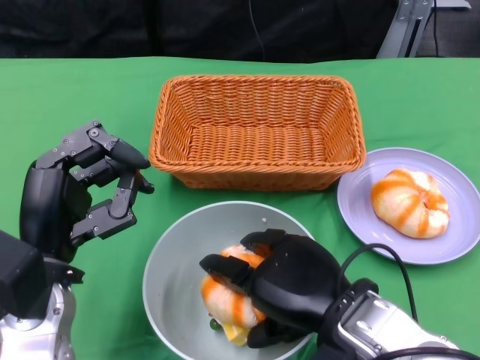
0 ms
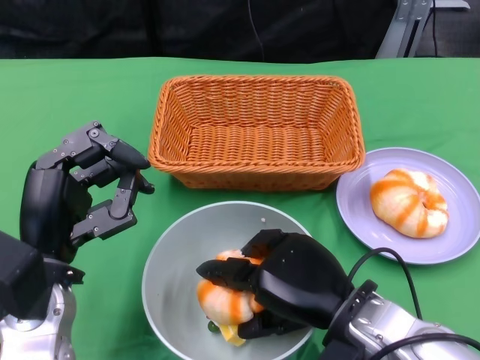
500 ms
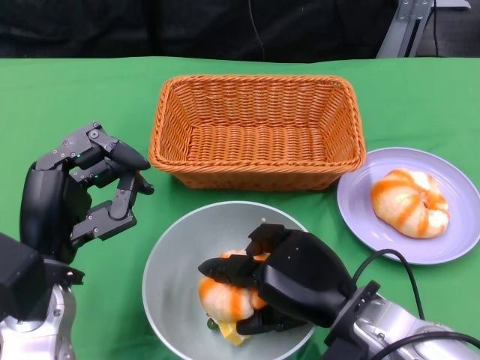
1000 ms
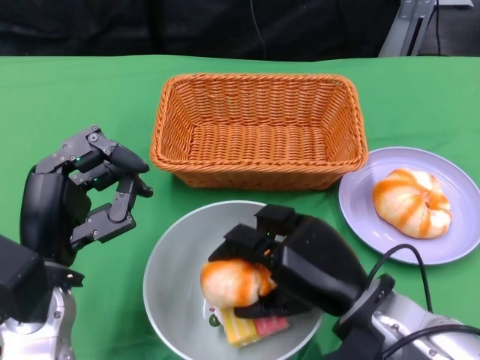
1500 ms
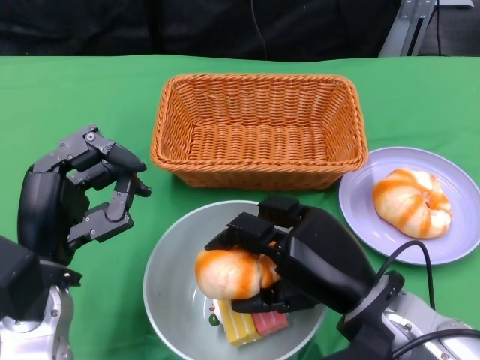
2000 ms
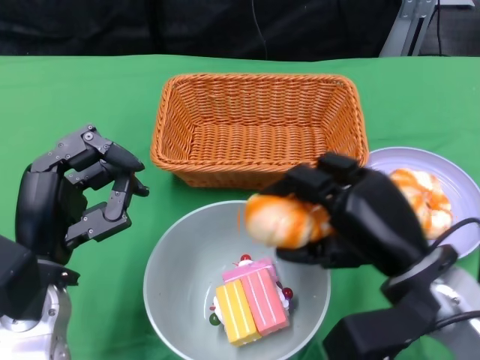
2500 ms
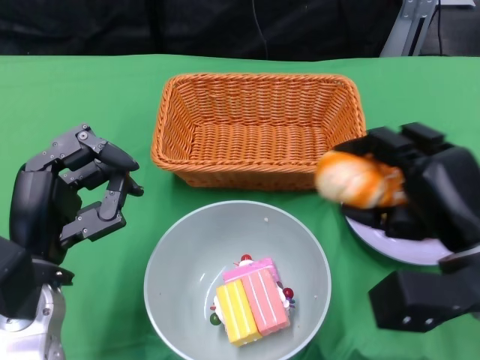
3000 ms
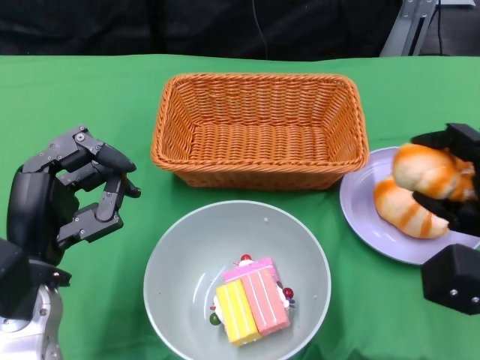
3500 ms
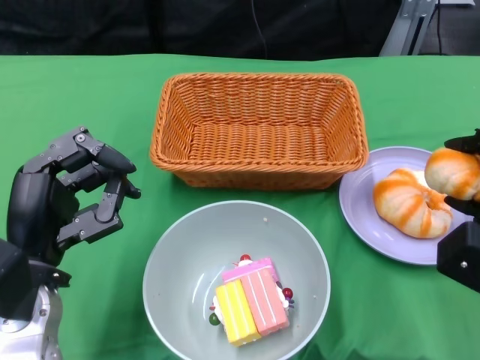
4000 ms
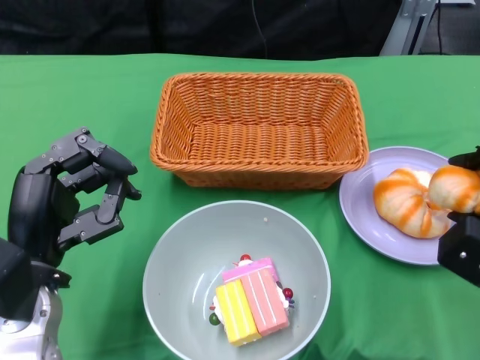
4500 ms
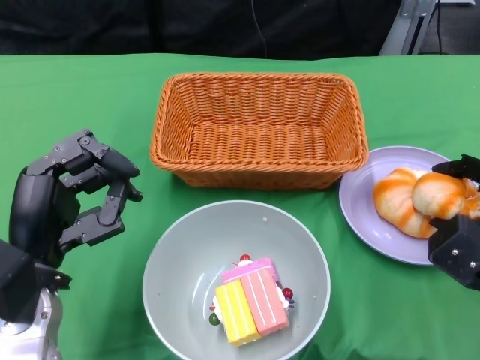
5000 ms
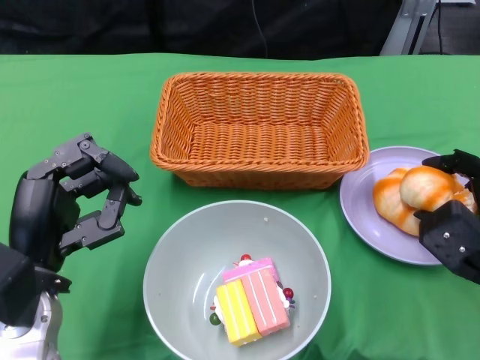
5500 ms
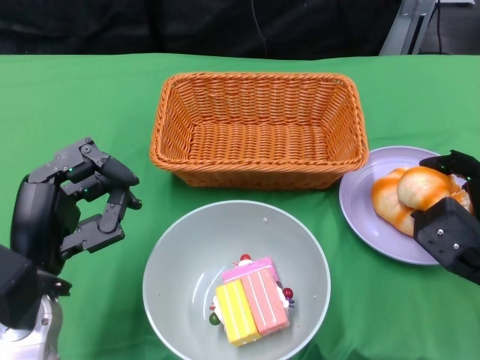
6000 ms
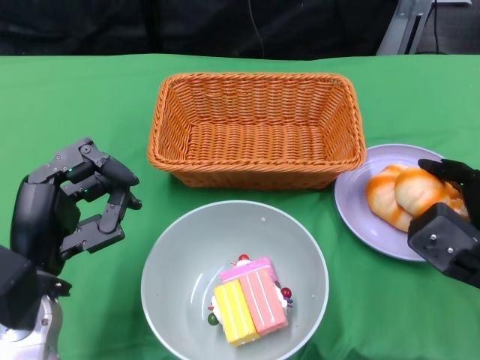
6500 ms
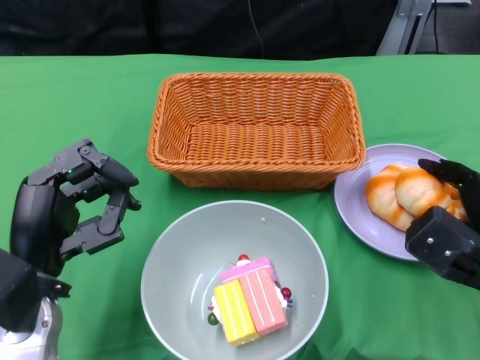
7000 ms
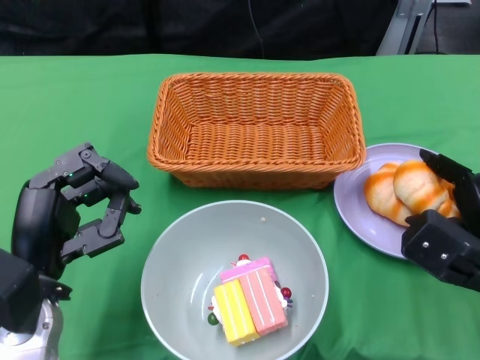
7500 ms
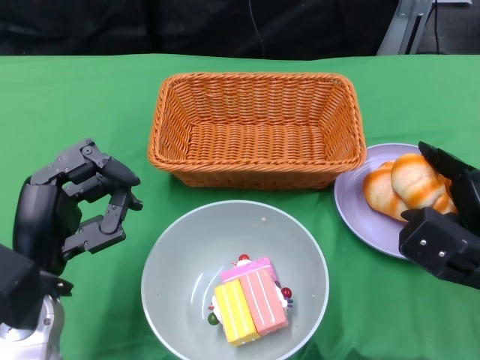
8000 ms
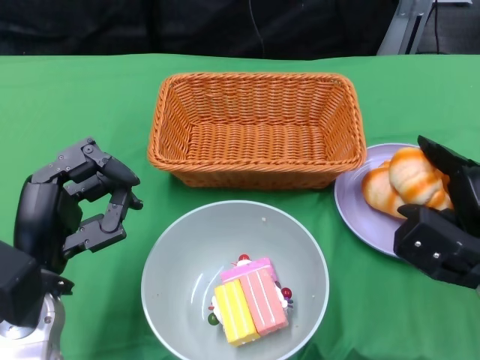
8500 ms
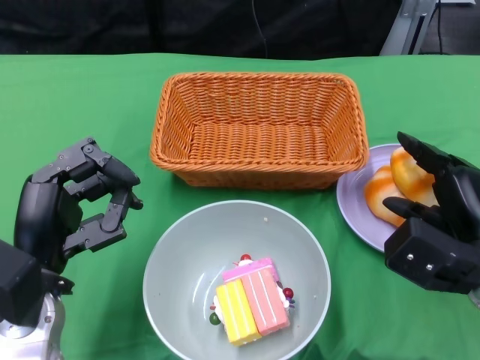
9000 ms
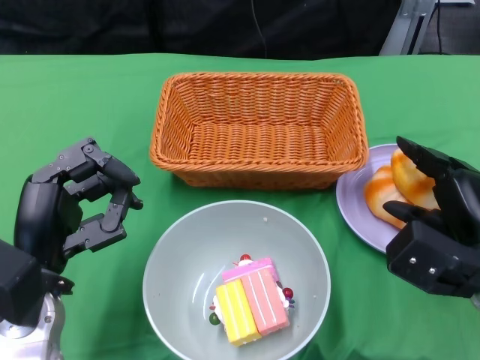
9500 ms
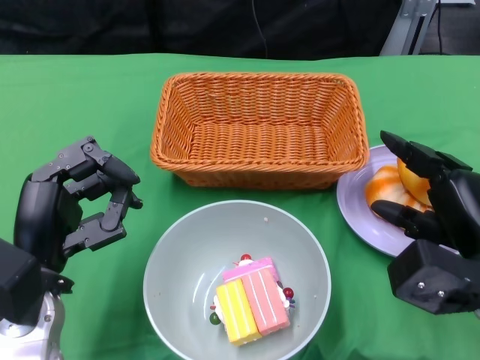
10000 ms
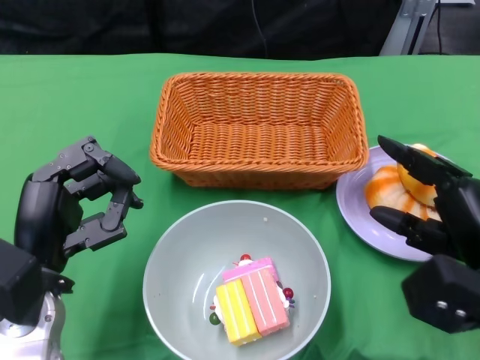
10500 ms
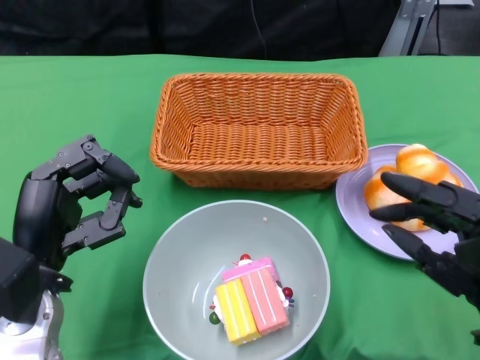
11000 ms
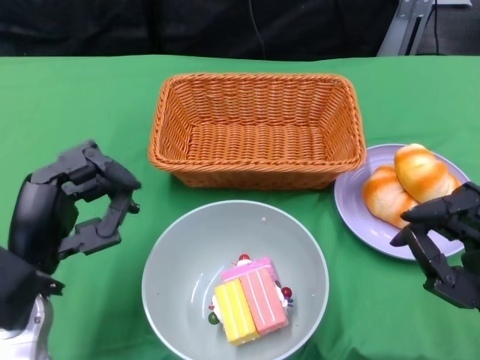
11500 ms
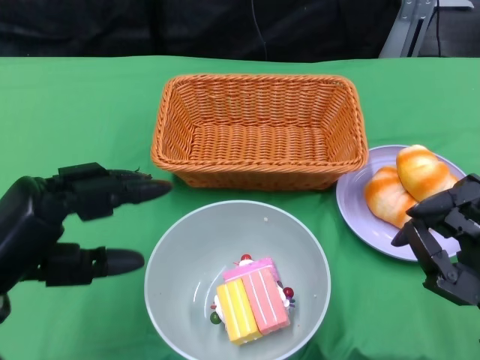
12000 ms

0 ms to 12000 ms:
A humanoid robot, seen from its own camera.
Step, 0 ms to 11000 ms: Pick up the bread with the right gripper and place it on the plate.
2000 ms to 4000 ms: The right hand goes roughly 15 cm to the right.
4000 ms to 6000 ms: The right hand shifts by some 5 cm.
6000 ms to 10000 ms: The hands stay close to where they were, moving slightly.
10000 ms to 12000 ms: The left hand moves roughly 5 cm; the right hand heads backward, covering approximately 10 cm.

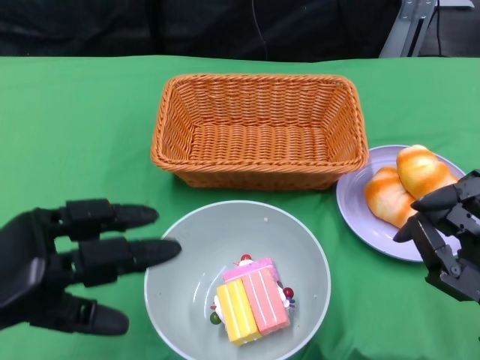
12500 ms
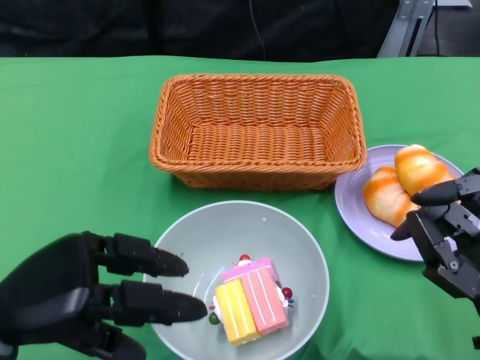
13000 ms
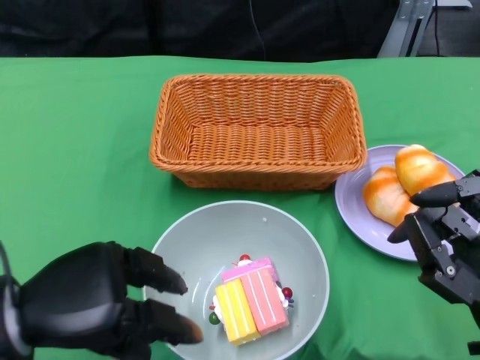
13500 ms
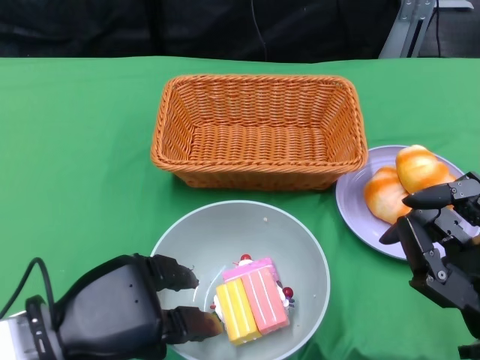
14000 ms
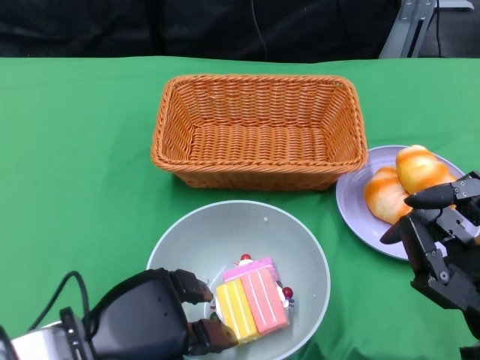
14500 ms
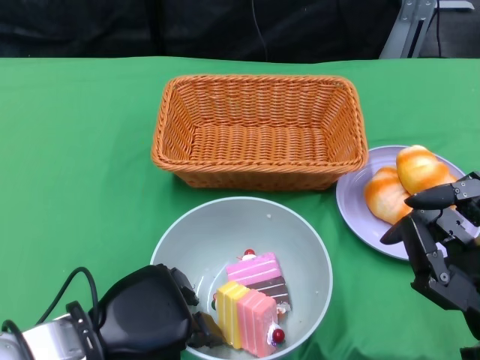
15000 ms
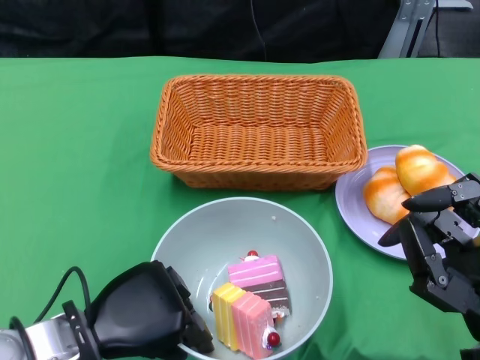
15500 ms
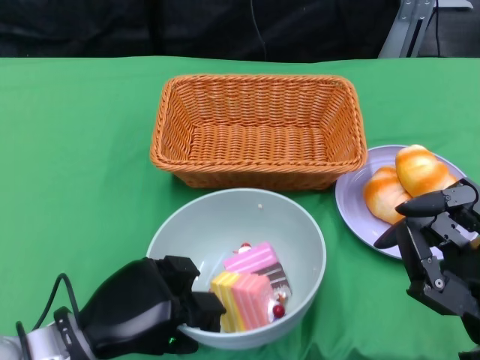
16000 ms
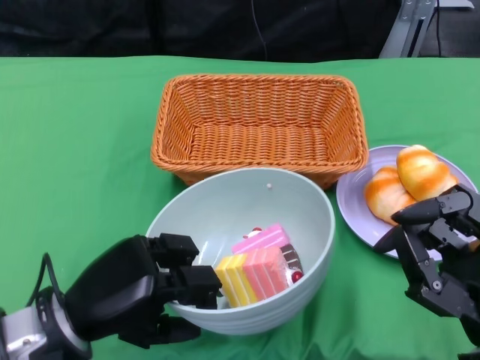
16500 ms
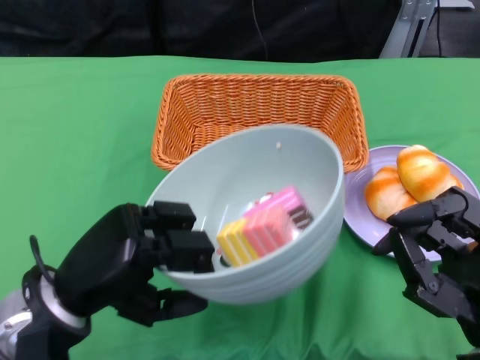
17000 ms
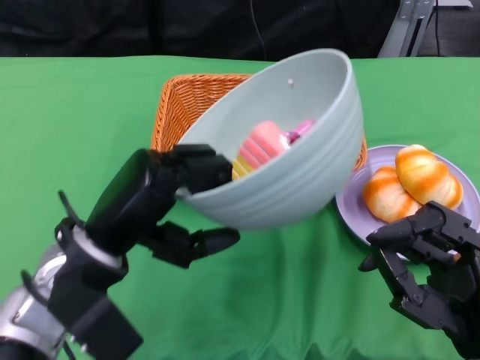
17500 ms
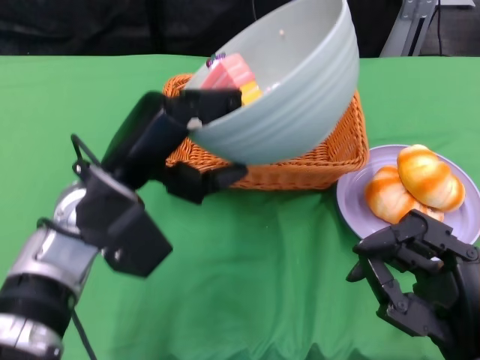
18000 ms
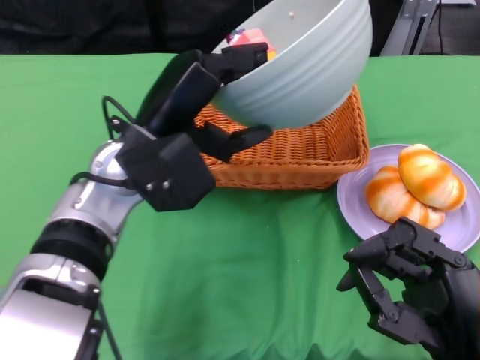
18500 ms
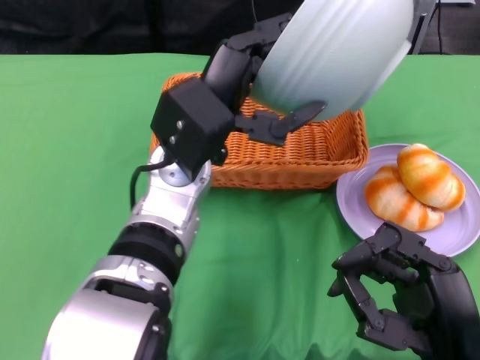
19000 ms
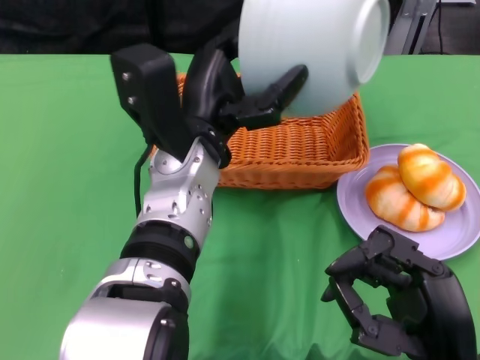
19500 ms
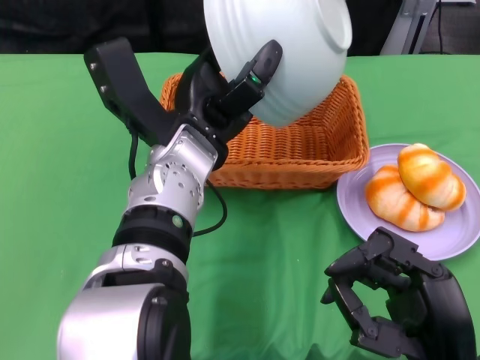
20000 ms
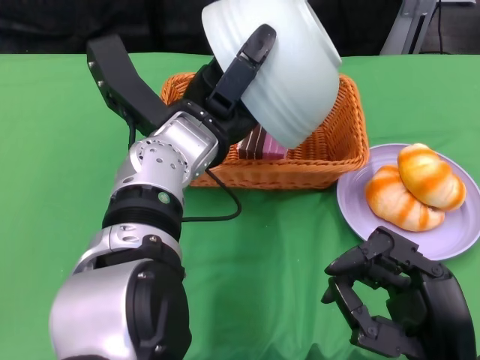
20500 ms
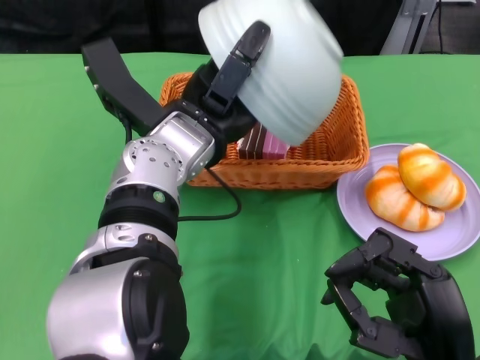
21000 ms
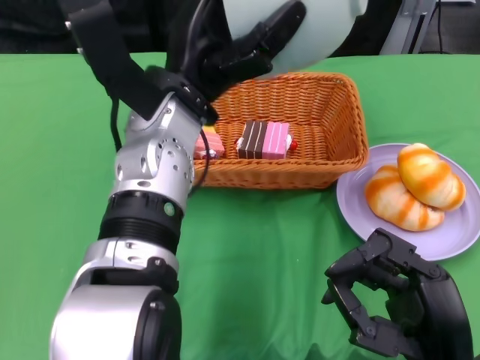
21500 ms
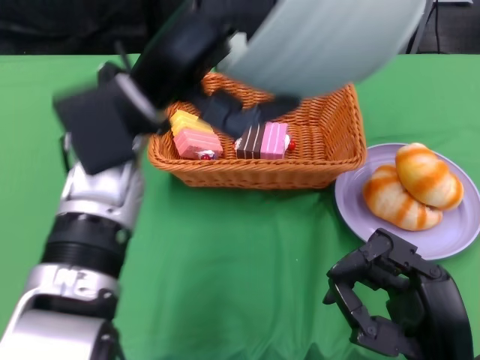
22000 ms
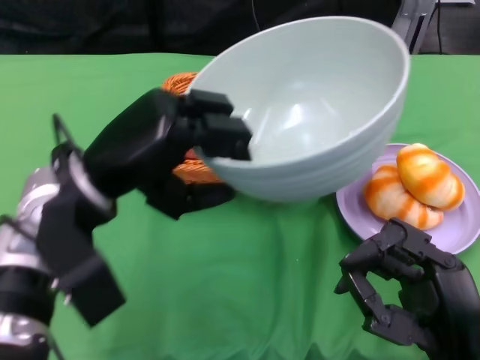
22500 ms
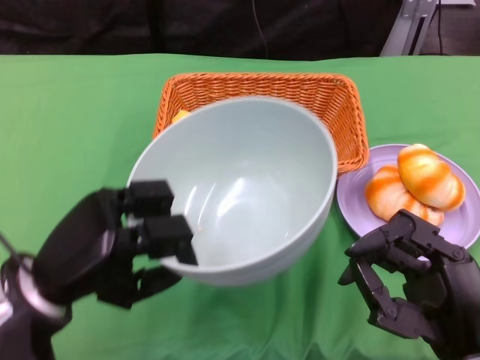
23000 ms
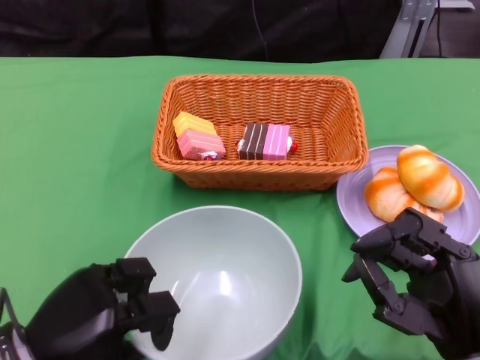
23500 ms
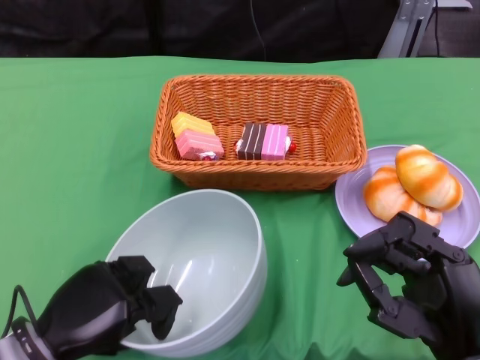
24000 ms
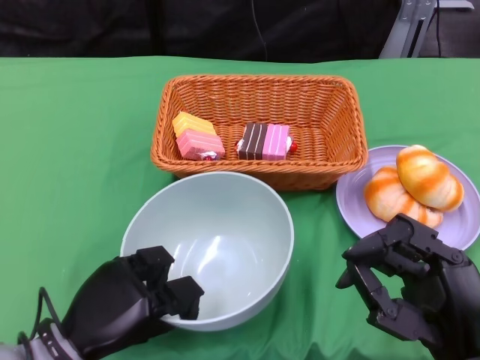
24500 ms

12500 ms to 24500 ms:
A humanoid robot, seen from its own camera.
Step, 12500 ms to 15500 ms: Grasp the bowl with the left gripper.
Step, 16000 ms to 21500 ms: Pour the cake into the basket with the left gripper.
12500 ms to 14500 ms: The left hand goes roughly 10 cm to the right.
16500 ms to 18500 ms: The left hand is displaced forward, upward and to the right by about 15 cm.
18500 ms to 20500 ms: The left hand ends up about 5 cm from where it was.
20500 ms to 22500 ms: The left hand shifts approximately 10 cm to the left and backward.
22500 ms to 24500 ms: The left hand heads downward and backward, covering about 20 cm.

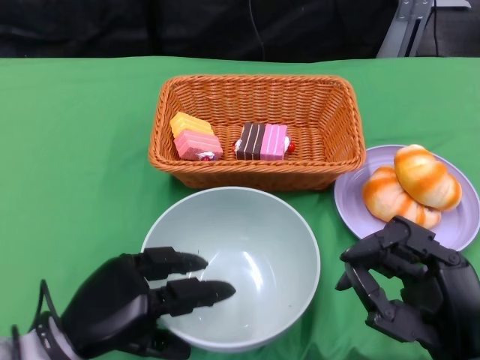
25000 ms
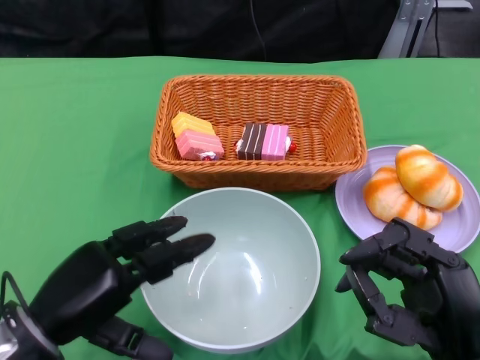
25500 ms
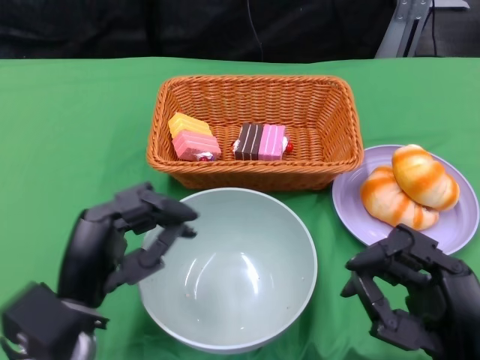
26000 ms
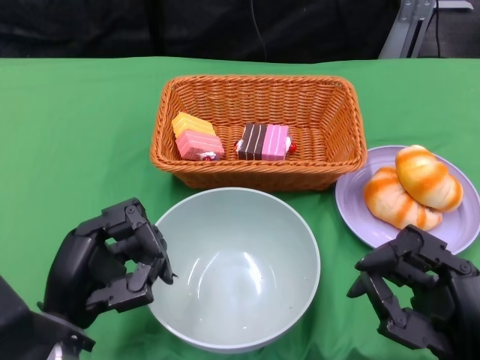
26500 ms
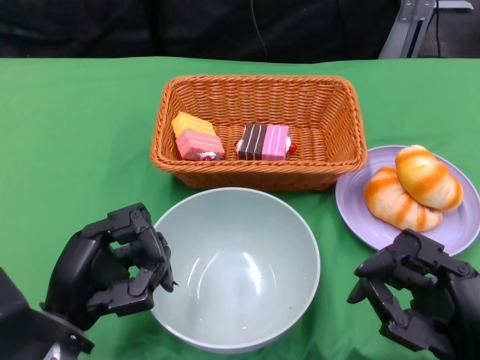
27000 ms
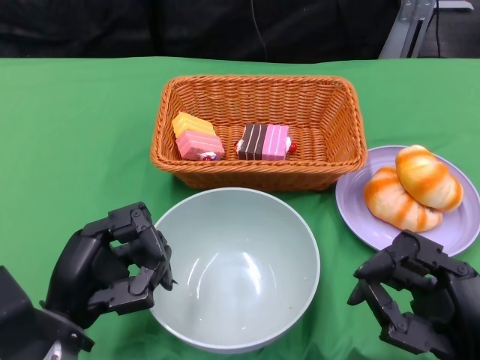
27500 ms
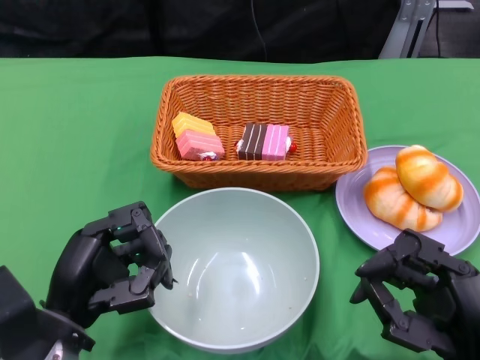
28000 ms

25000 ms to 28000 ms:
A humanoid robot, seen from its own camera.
26500 ms to 28000 ms: Both hands stay about where they are.
